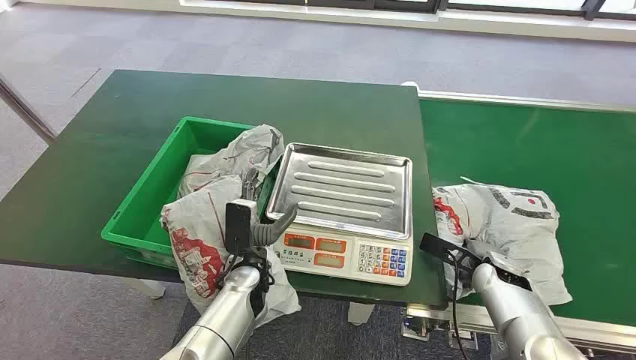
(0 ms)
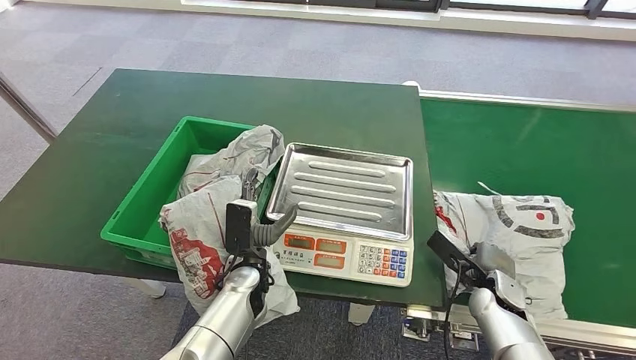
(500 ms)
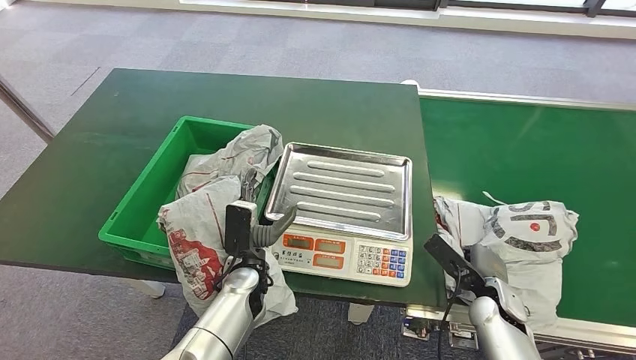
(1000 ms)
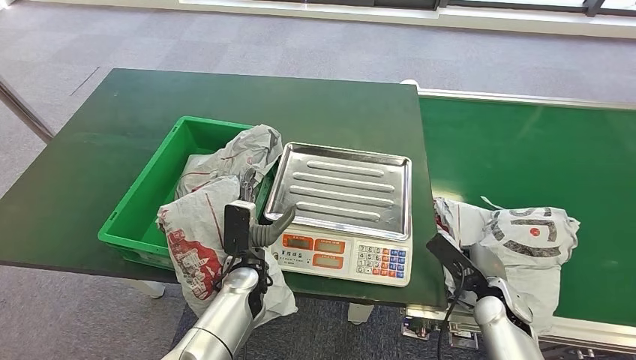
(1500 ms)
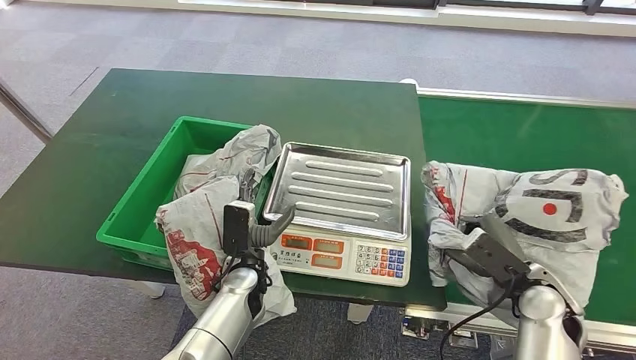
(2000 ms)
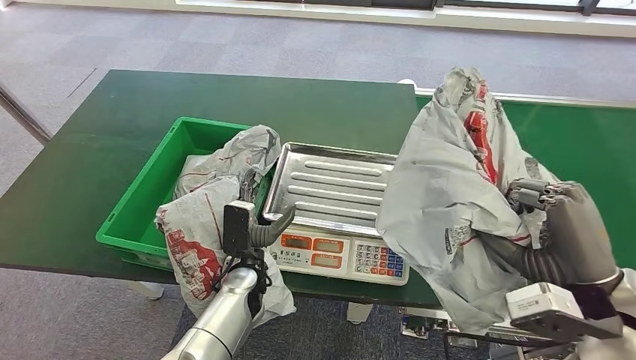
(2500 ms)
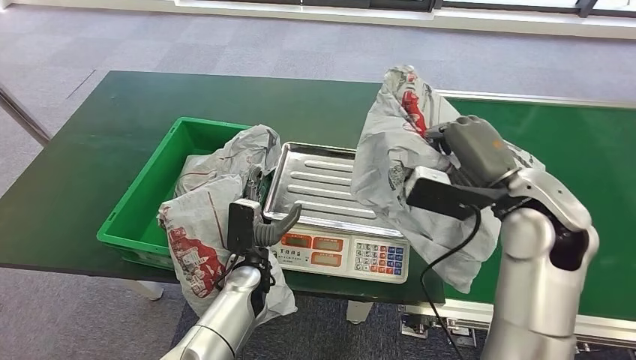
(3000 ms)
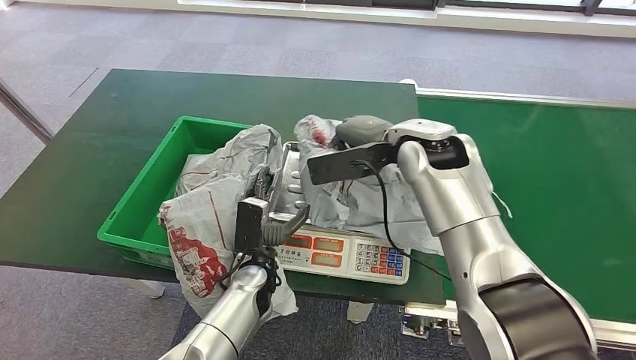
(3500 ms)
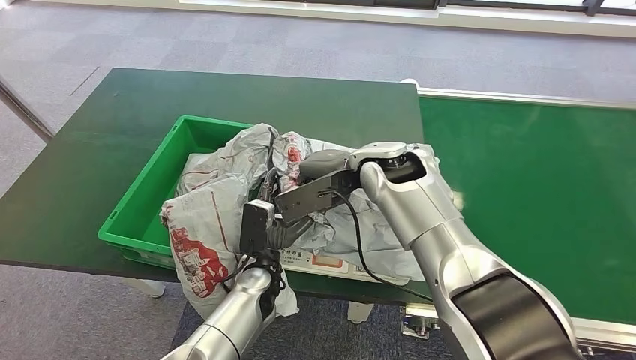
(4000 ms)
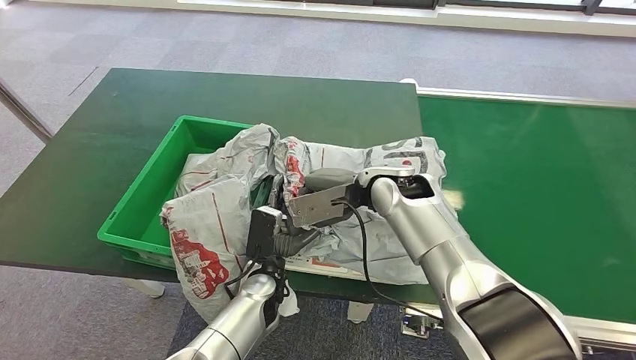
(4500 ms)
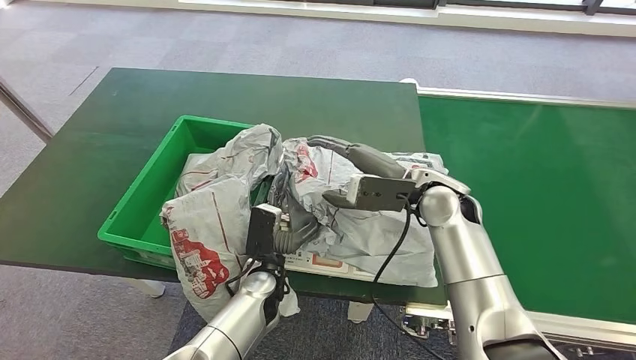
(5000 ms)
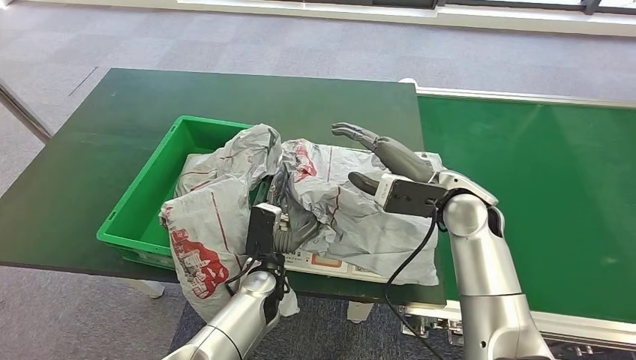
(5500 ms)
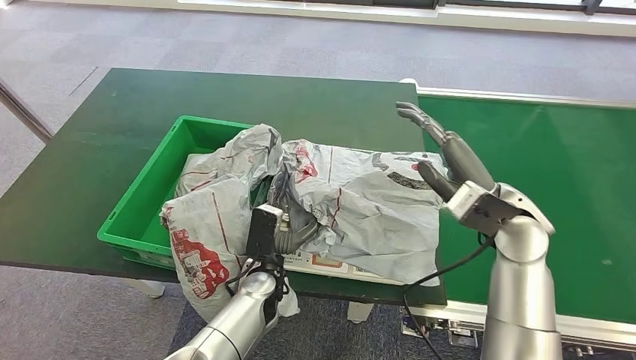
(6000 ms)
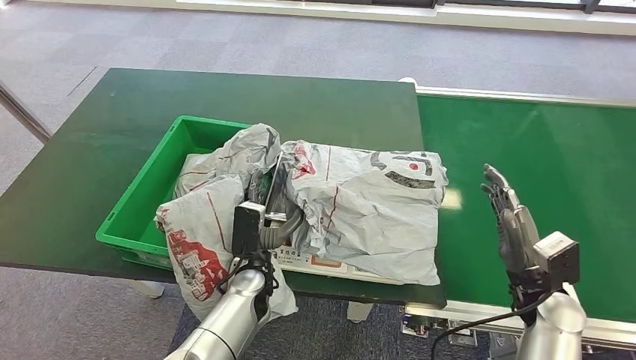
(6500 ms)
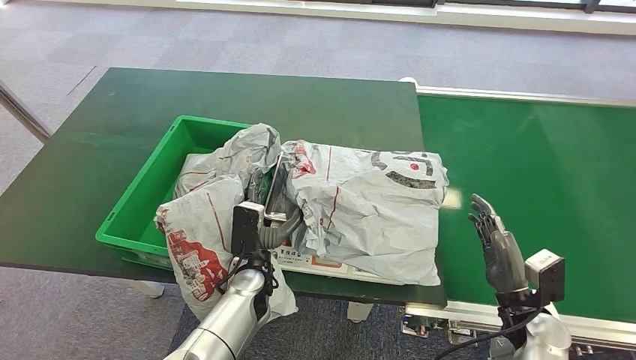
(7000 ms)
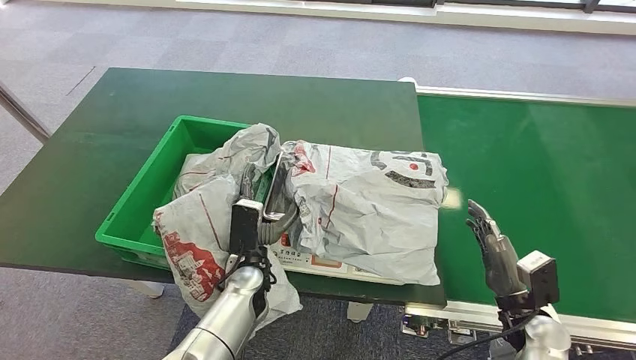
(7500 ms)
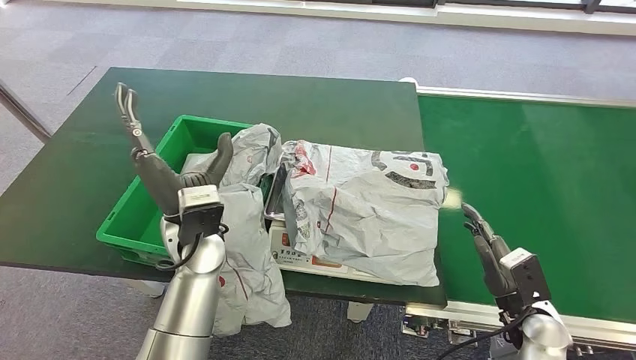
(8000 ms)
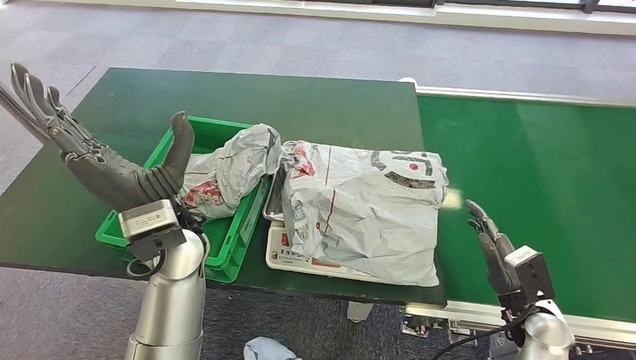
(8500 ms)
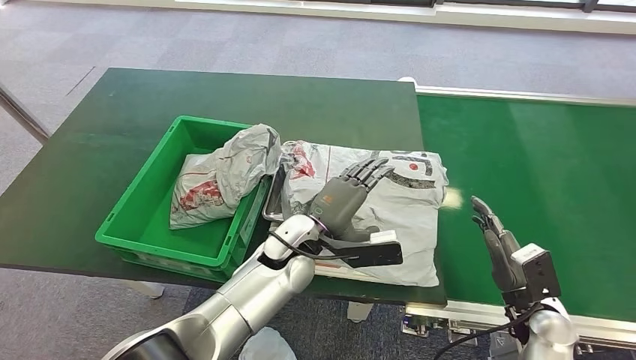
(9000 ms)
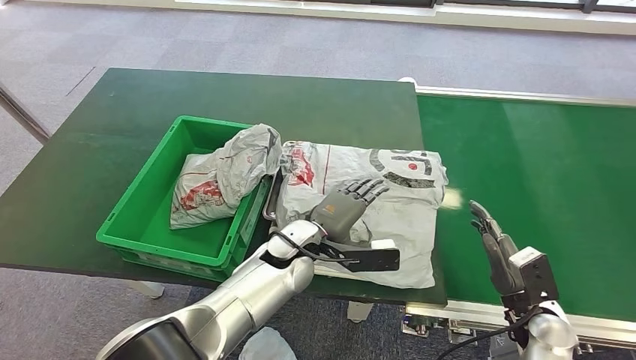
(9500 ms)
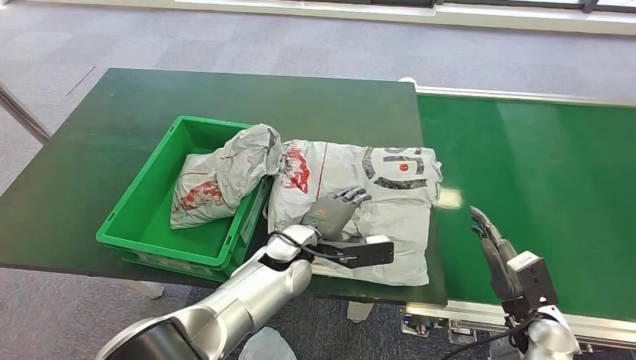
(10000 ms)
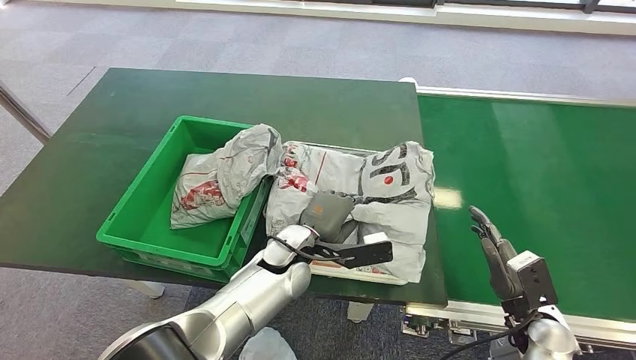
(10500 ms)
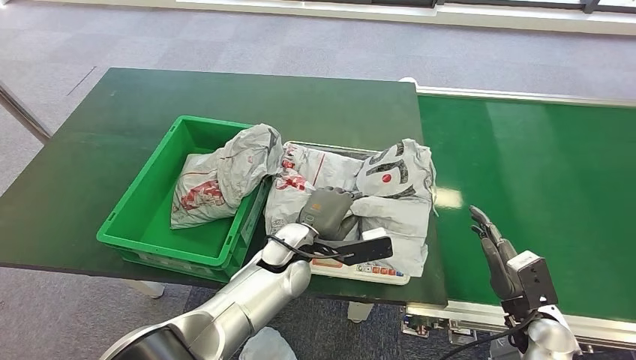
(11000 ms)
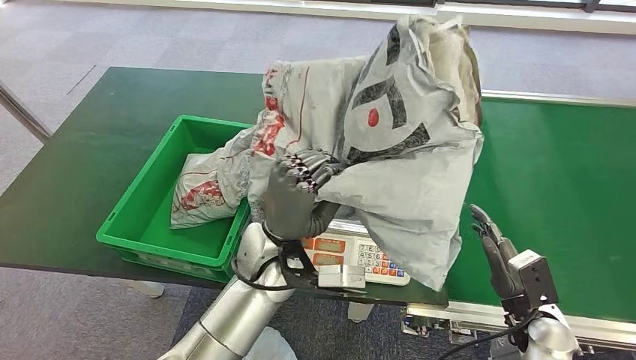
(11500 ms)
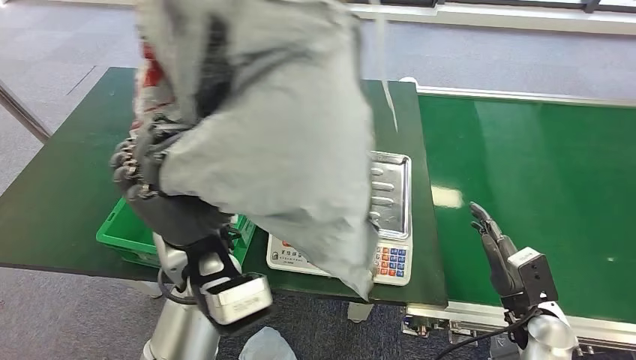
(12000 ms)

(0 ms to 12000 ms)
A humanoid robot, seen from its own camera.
Step, 0 ms - 2500 ms: Pick up the package from the conveyor belt.
Step, 3000 ms - 6500 ms: Place the package onto the inbound machine.
Step, 10500 ms - 11000 ms: Pick up the package from the inbound machine.
4000 ms - 6000 ms: The right hand shifts some 20 cm to the right and backward.
8000 ms - 10000 ms: The left hand is displaced to the right and downward by some 15 cm.

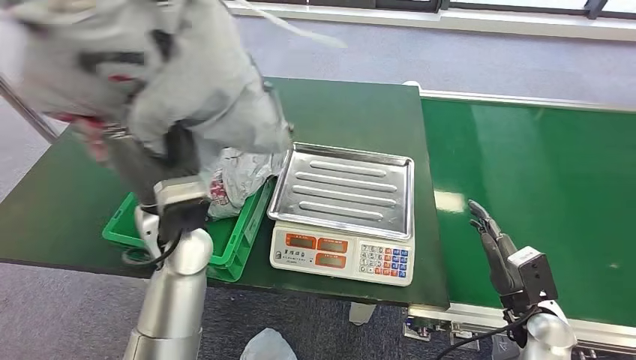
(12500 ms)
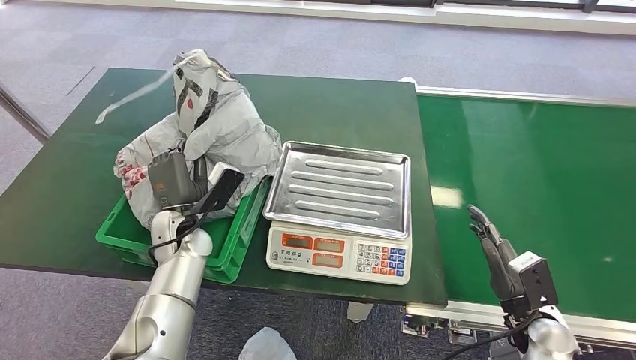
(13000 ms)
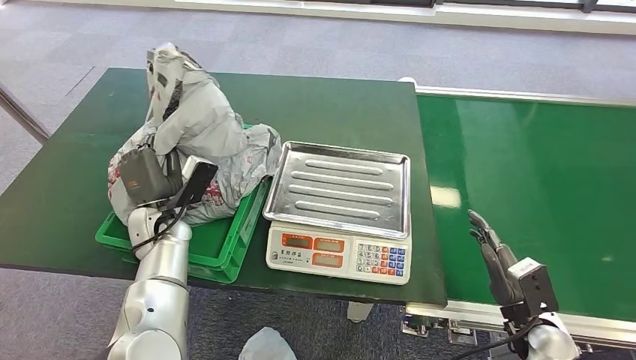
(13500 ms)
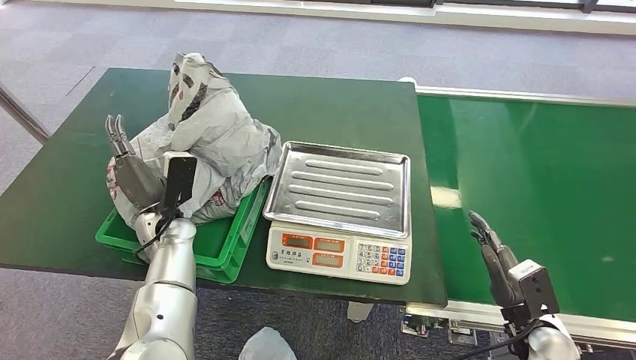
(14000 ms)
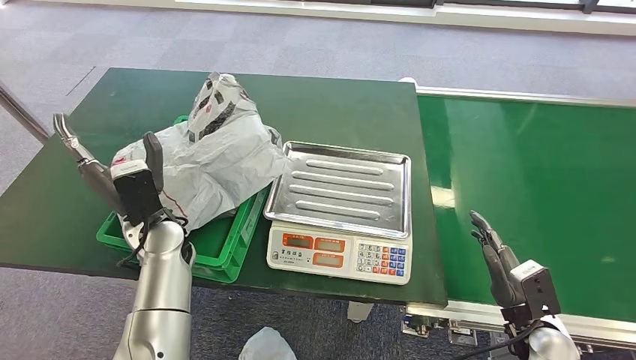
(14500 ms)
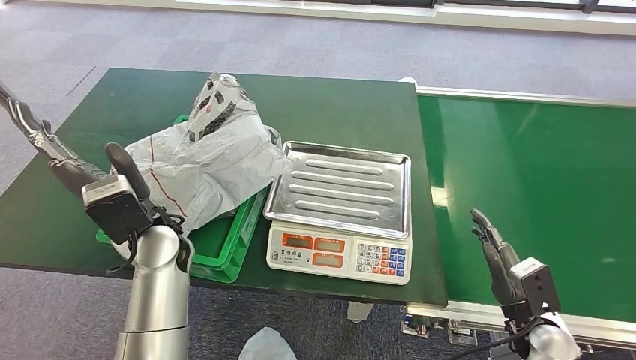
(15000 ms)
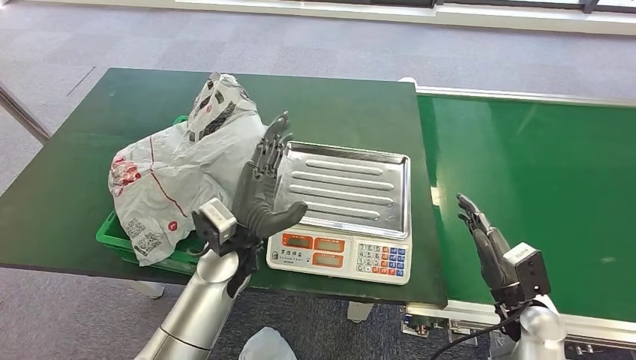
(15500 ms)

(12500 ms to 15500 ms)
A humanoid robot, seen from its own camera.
Step, 12500 ms - 15500 ms: Place the package into the parcel locker.
14000 ms - 15500 ms: The left hand goes some 15 cm to the right.

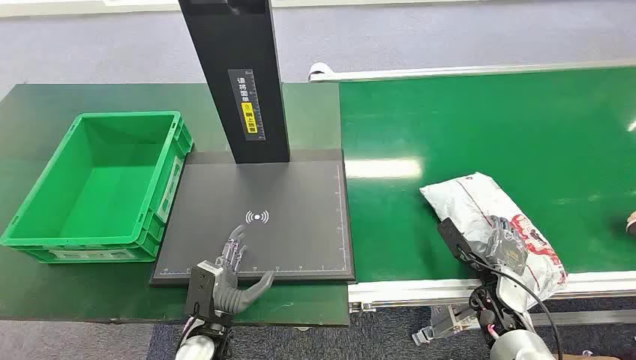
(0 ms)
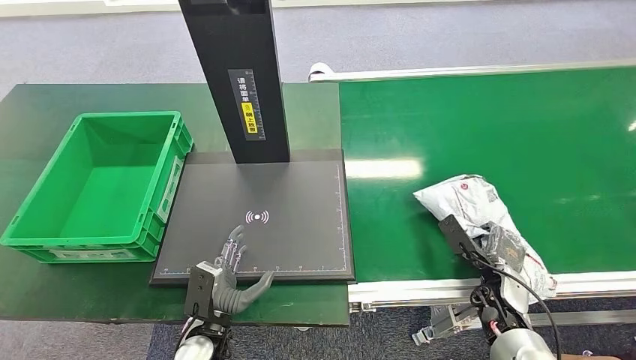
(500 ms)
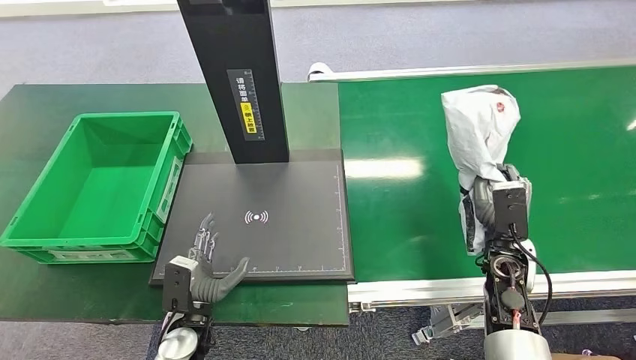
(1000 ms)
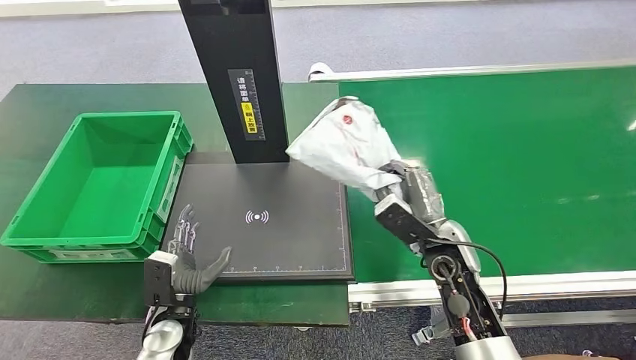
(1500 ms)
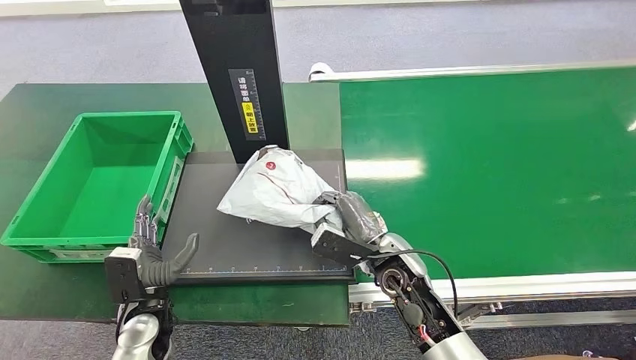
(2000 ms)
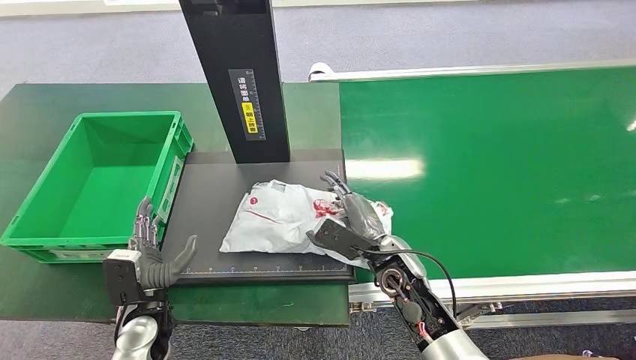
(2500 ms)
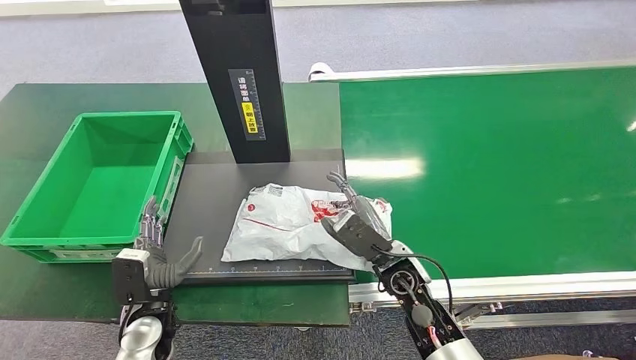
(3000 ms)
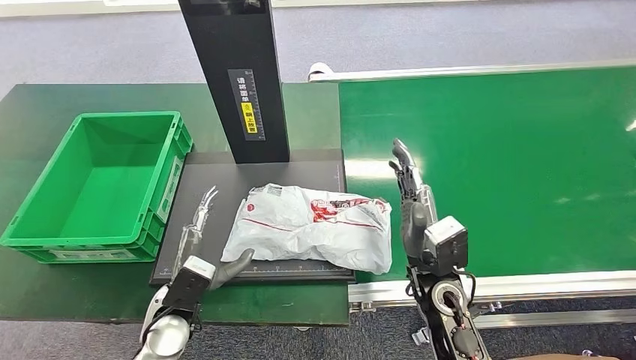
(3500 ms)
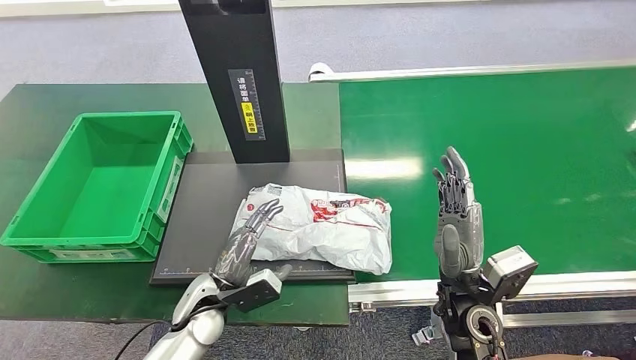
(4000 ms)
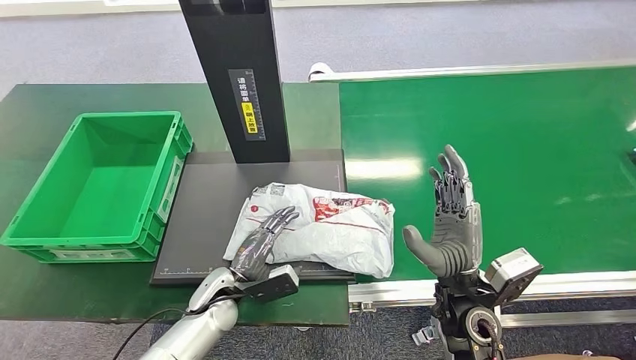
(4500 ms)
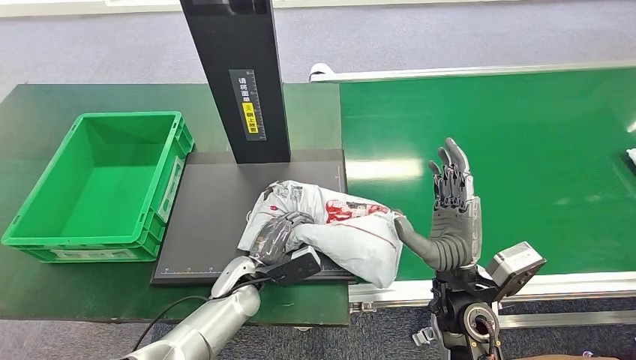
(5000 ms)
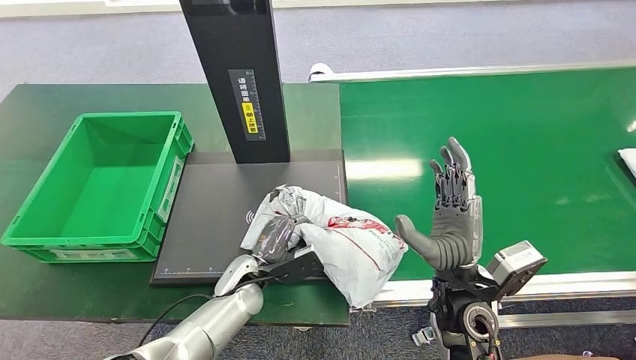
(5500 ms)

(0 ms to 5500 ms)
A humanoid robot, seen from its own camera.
Step, 0 ms - 1500 ms: Pick up the package from the conveyor belt.
Step, 2000 ms - 3500 ms: Place the package onto the inbound machine.
2000 ms - 3500 ms: The right hand ends up roughly 5 cm from where it was; the left hand travels to the right by roughly 5 cm.
3500 ms - 5500 ms: The left hand is displaced to the right and forward by roughly 10 cm.
